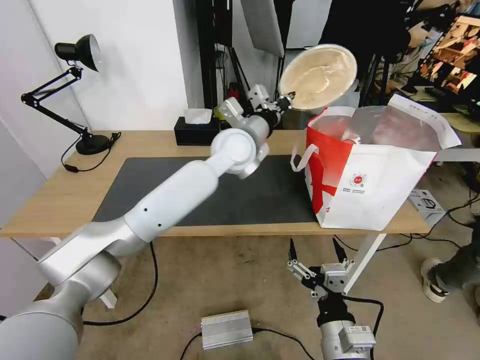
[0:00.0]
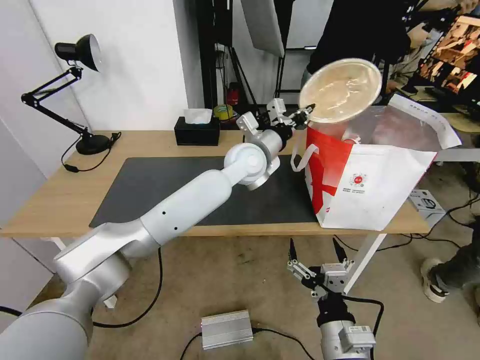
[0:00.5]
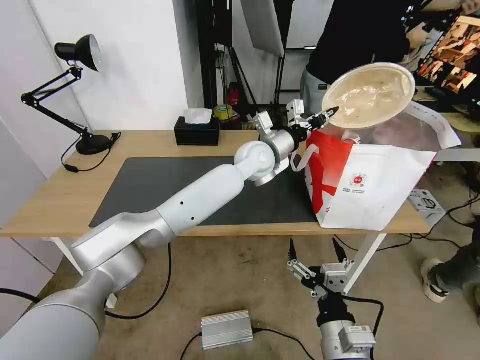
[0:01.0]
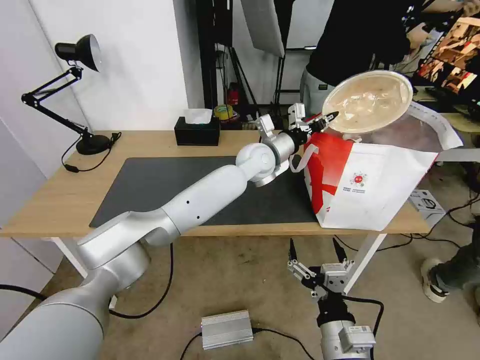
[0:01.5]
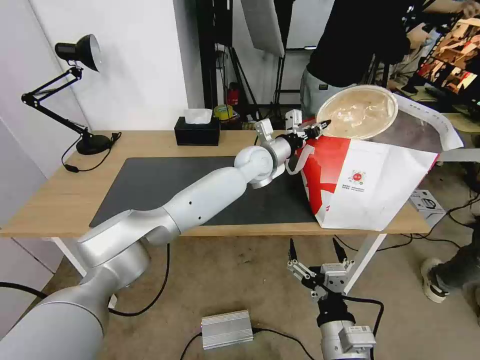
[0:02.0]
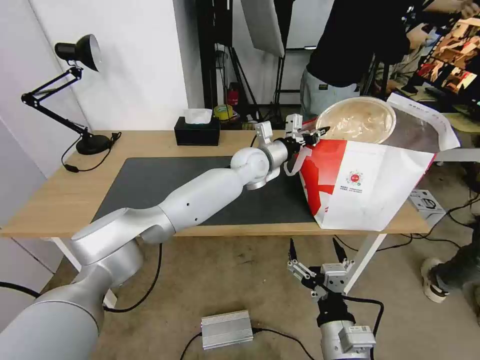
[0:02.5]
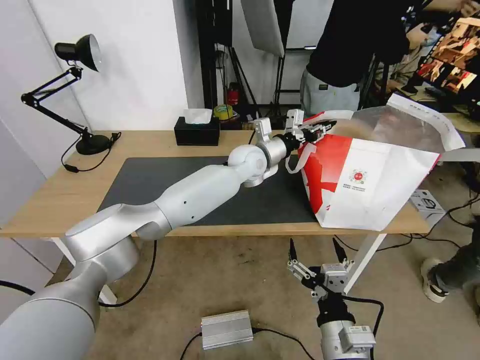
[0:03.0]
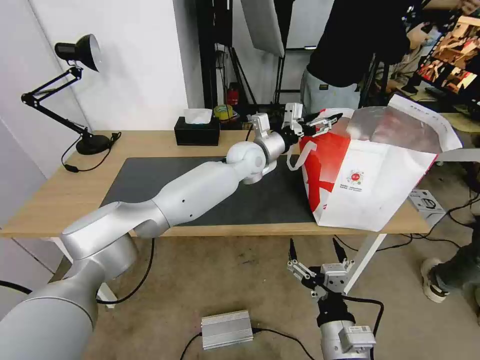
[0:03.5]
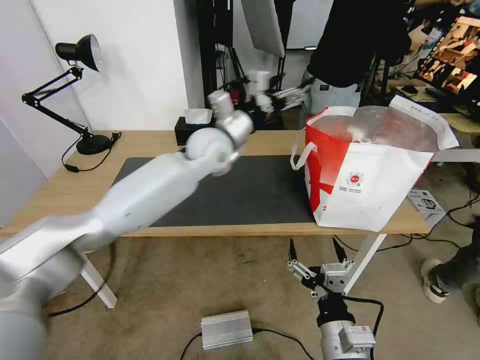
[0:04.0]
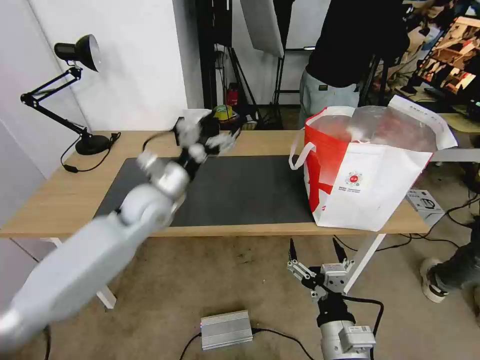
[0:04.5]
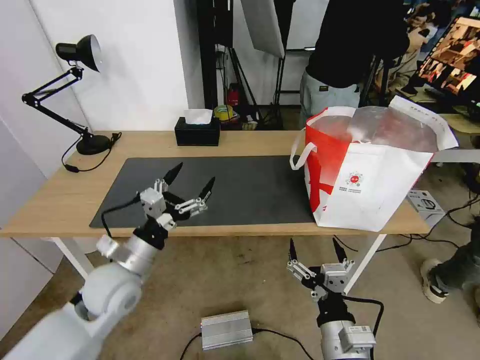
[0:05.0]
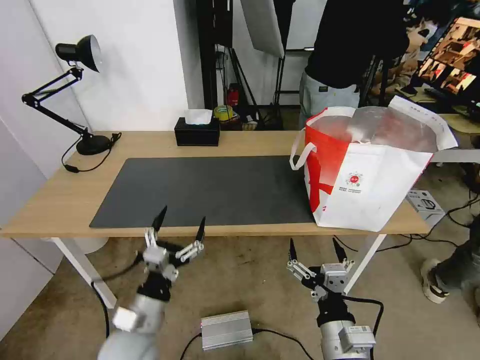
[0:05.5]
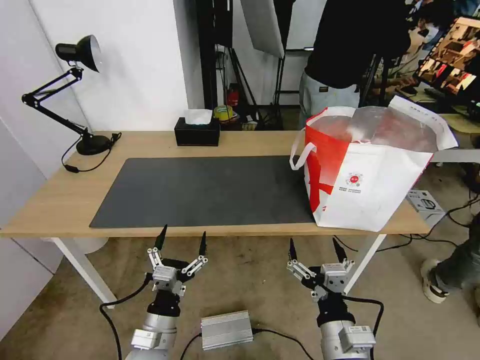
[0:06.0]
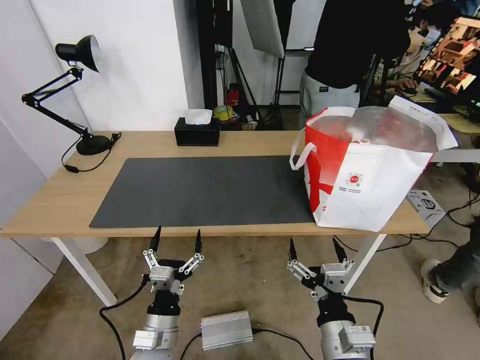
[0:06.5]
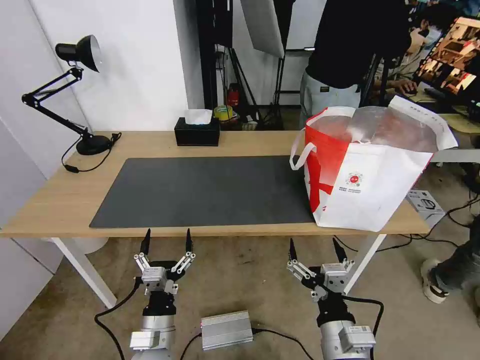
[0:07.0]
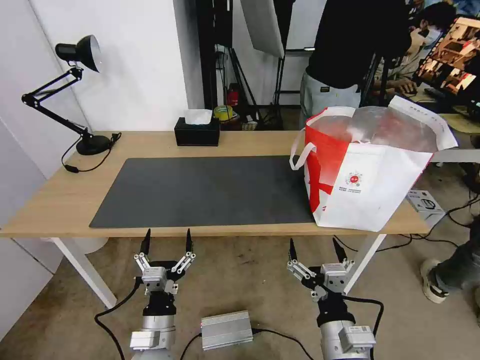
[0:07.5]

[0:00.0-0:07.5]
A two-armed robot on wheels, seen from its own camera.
Task of the whole recording: Pick up the trash from the table and place it into the takeout bag.
0:00.0 to 0:02.0: The left gripper travels downward and forward by roughly 10 cm.
0:02.0 to 0:04.0: The left gripper is displaced to the left and upward by approximately 10 cm, and opens up.
0:04.0 to 0:05.5: The left gripper goes roughly 40 cm backward, downward and to the left.
0:05.5 to 0:07.5: The left gripper changes place by approximately 5 cm.
